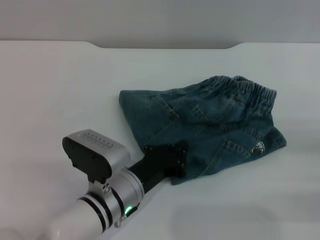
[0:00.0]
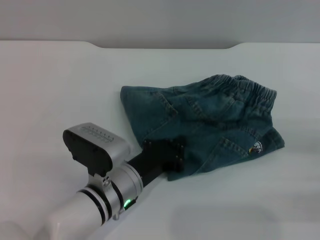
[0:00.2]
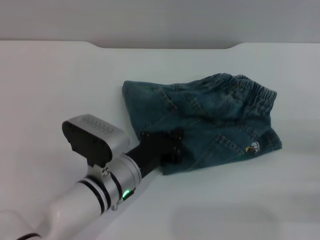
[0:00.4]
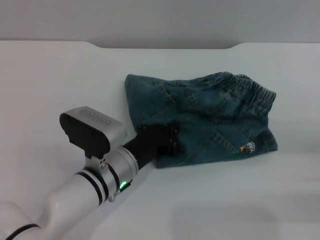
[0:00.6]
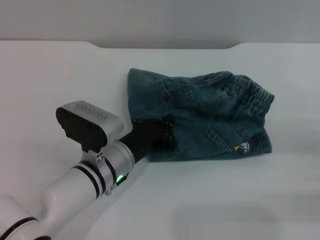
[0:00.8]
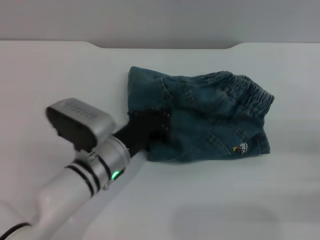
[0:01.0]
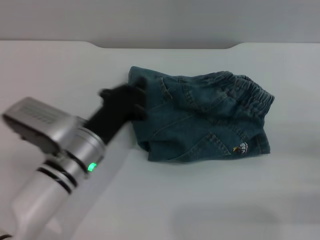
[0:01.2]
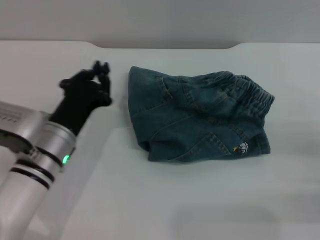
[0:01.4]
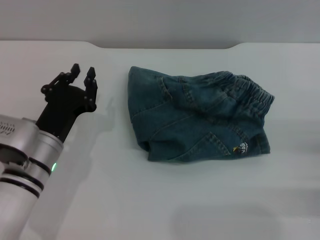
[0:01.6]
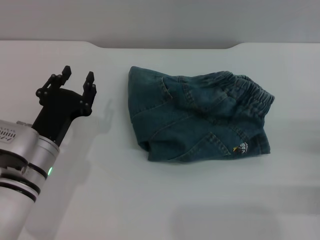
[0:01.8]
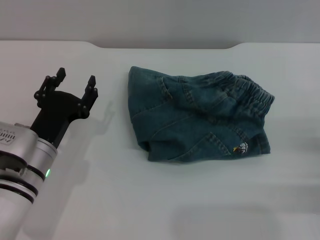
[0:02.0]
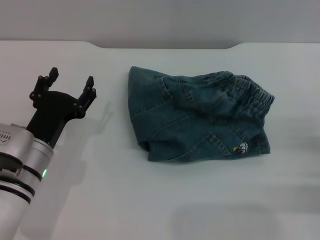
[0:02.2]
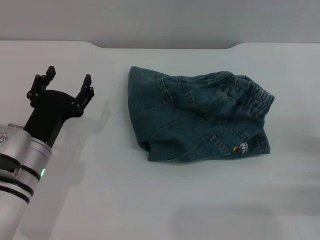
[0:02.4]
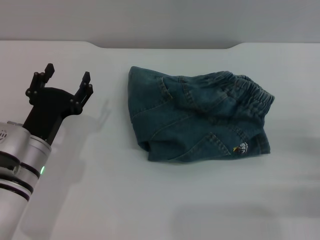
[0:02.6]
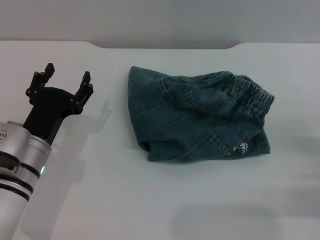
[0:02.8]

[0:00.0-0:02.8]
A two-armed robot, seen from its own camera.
0:00.0 to 0:01.4: The left gripper is displaced to the left by approximately 10 cm.
0:01.4 to 0:02.8: The left gripper opens.
